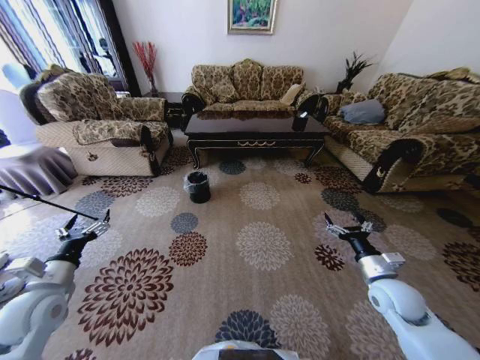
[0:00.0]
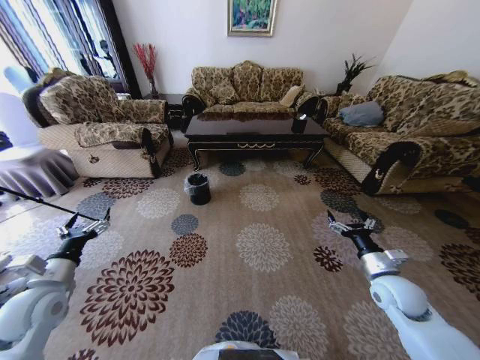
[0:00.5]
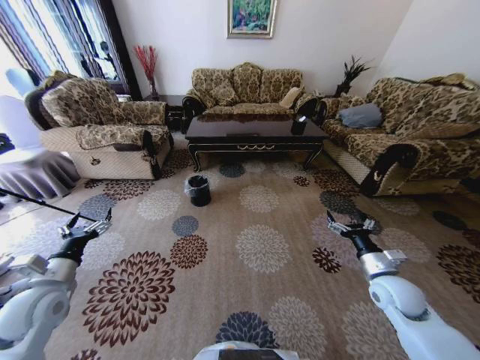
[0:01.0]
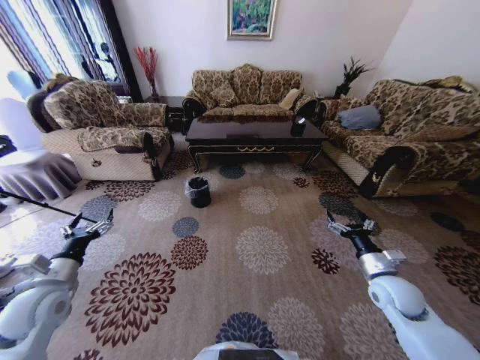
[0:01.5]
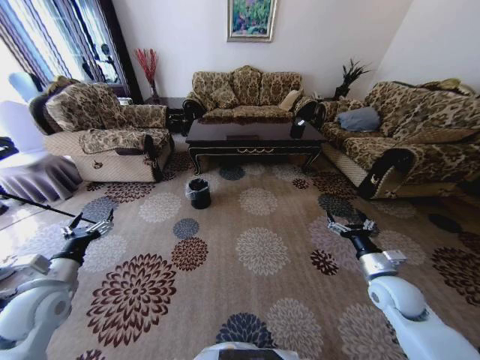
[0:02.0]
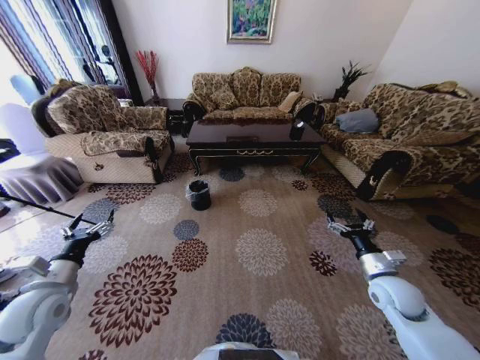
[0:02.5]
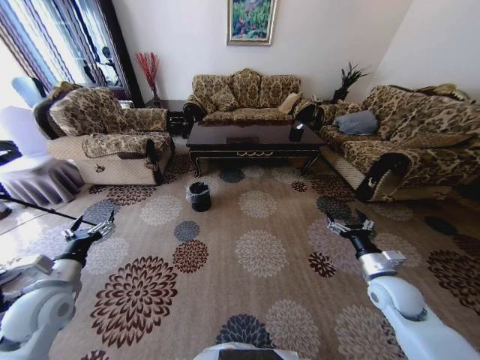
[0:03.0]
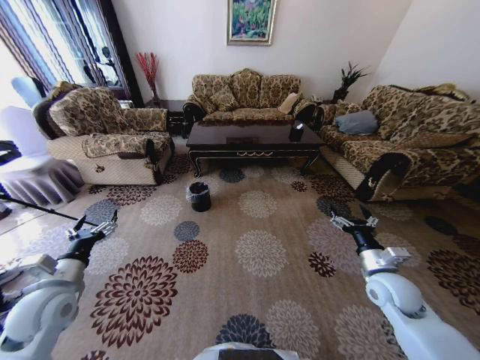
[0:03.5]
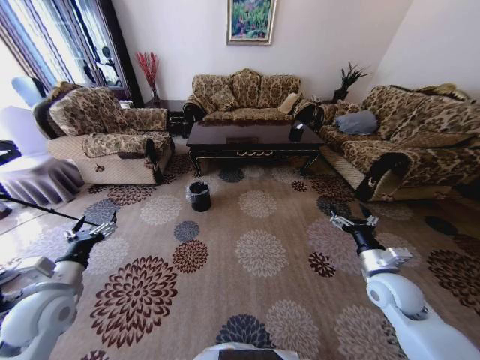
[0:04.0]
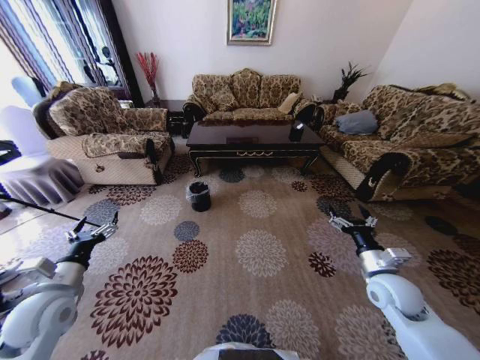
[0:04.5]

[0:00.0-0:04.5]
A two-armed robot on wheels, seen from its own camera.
Task of the whole recording: Move to the front of the table and pick up the trash from the floor, then place it into the trash bin.
0:02.0 to 0:04.5: The grippers move only a little.
